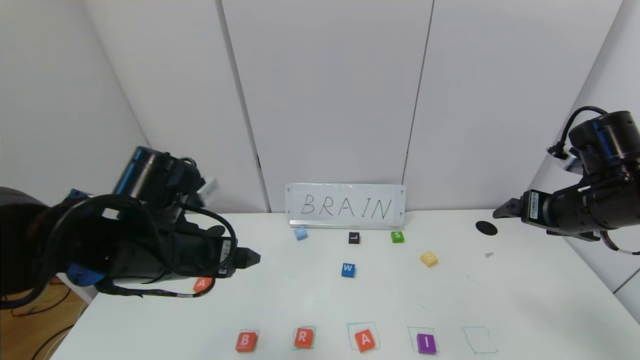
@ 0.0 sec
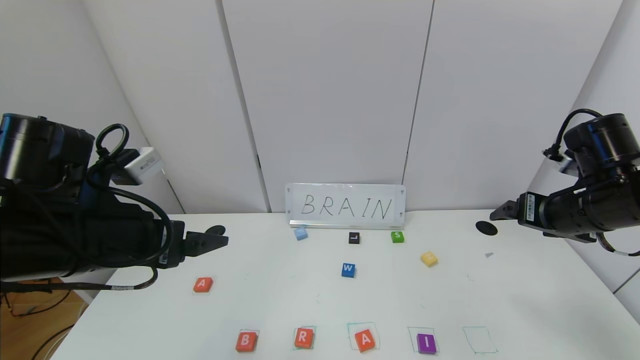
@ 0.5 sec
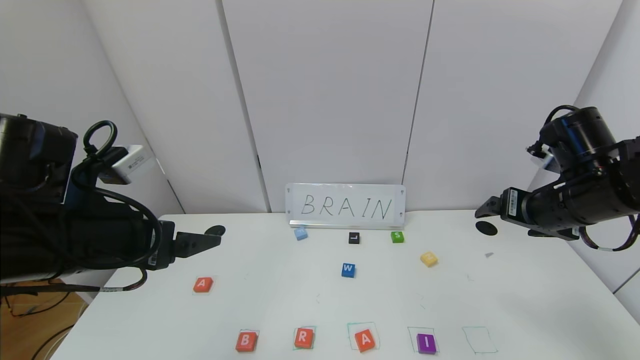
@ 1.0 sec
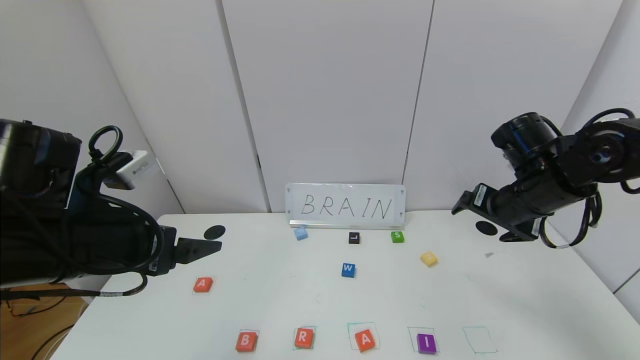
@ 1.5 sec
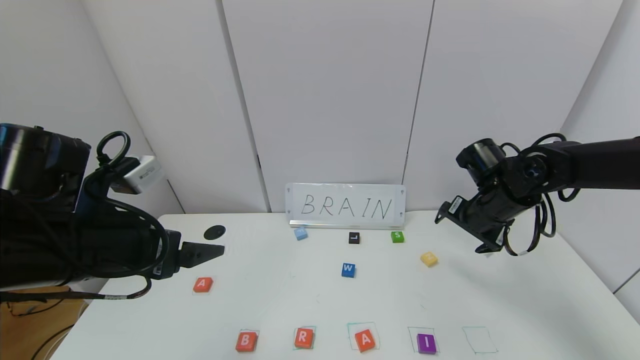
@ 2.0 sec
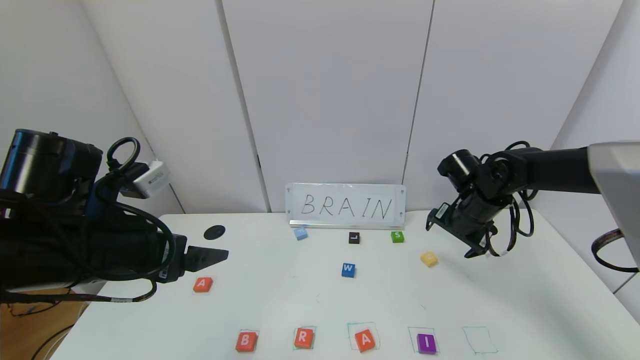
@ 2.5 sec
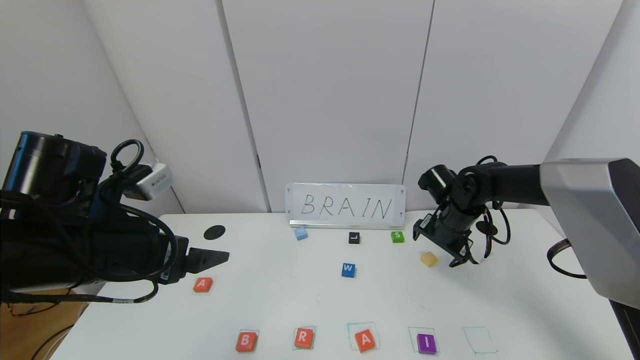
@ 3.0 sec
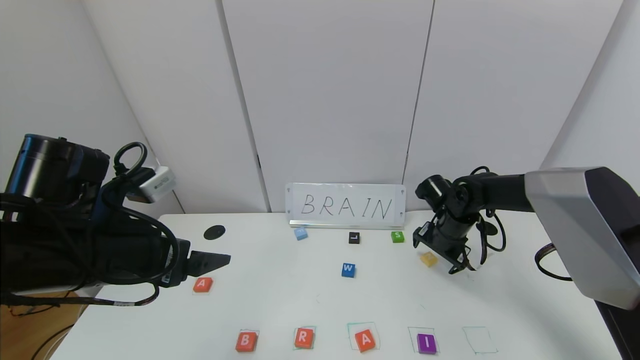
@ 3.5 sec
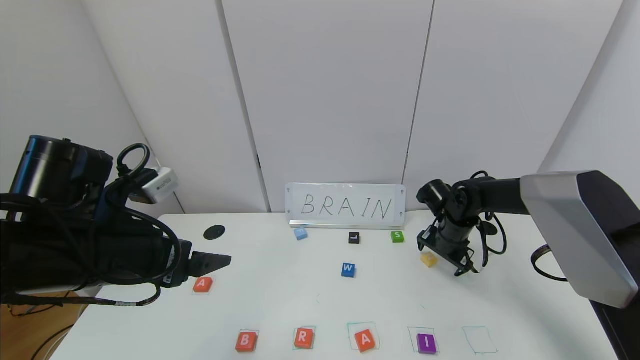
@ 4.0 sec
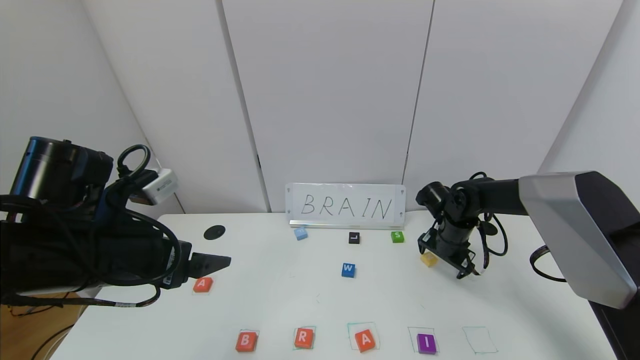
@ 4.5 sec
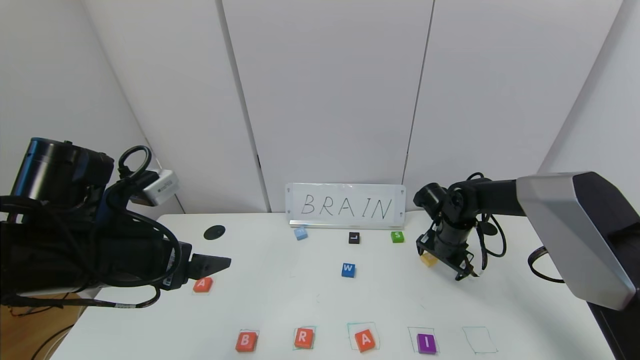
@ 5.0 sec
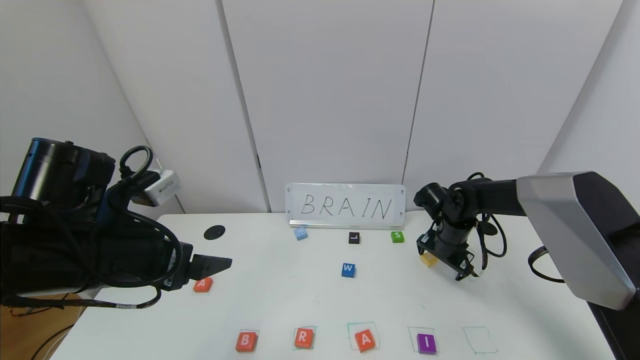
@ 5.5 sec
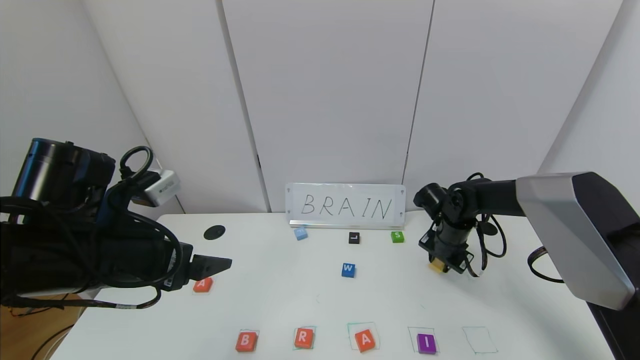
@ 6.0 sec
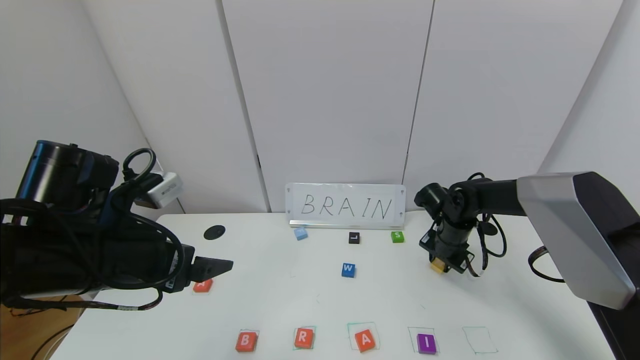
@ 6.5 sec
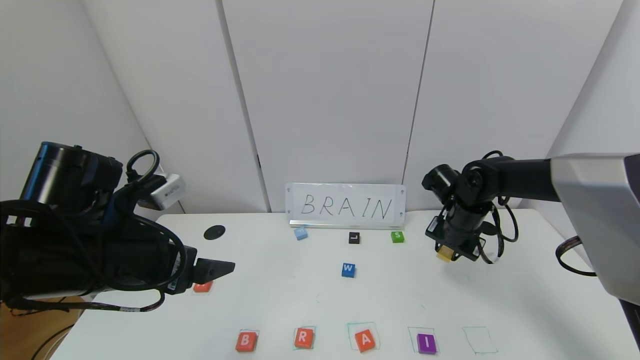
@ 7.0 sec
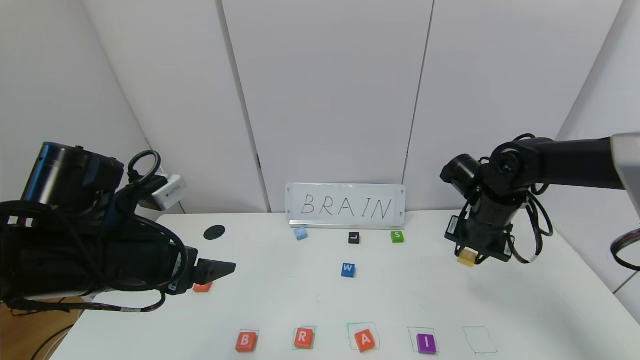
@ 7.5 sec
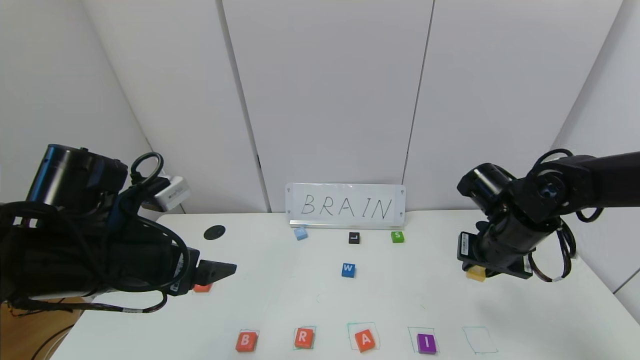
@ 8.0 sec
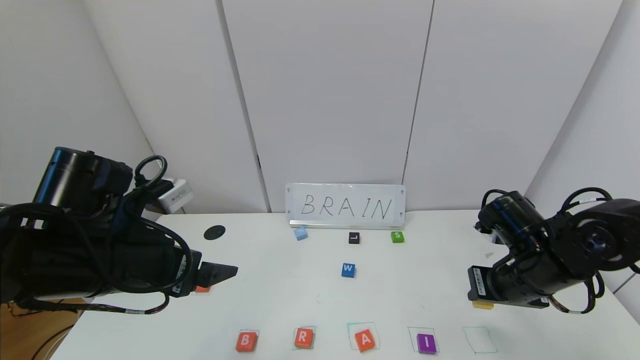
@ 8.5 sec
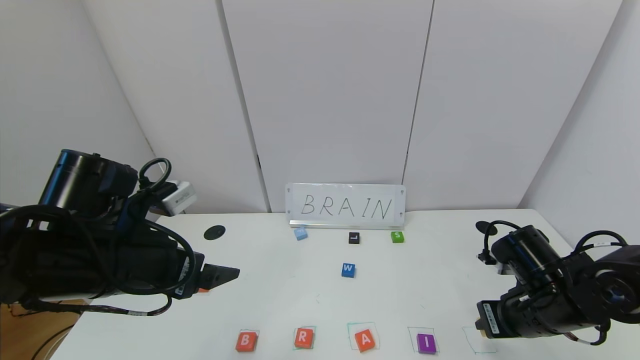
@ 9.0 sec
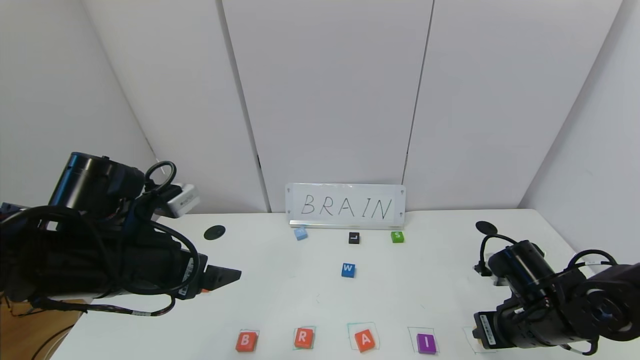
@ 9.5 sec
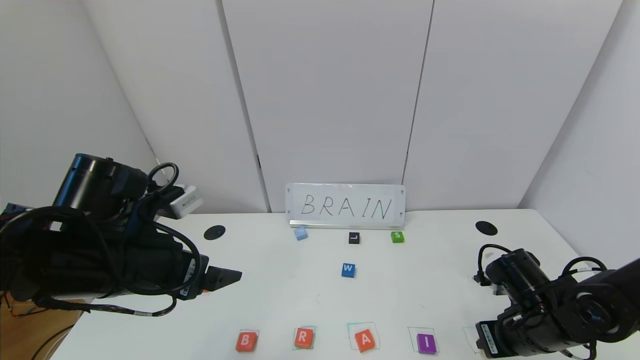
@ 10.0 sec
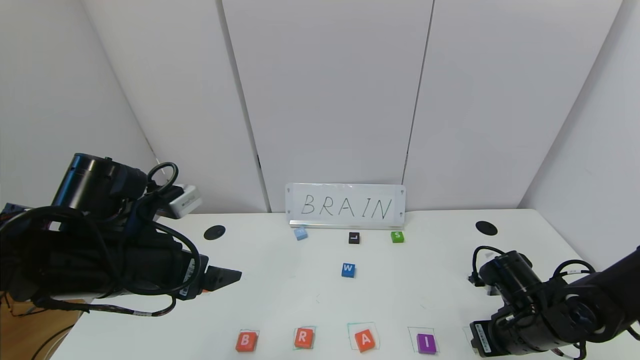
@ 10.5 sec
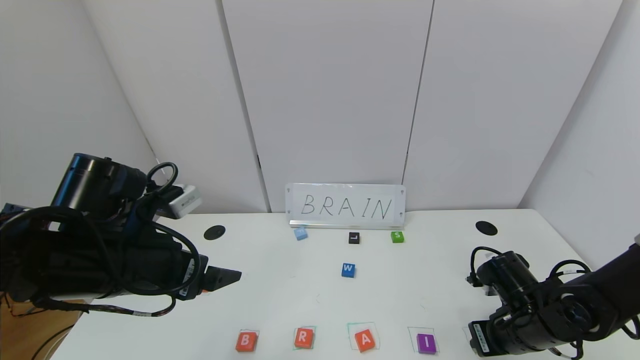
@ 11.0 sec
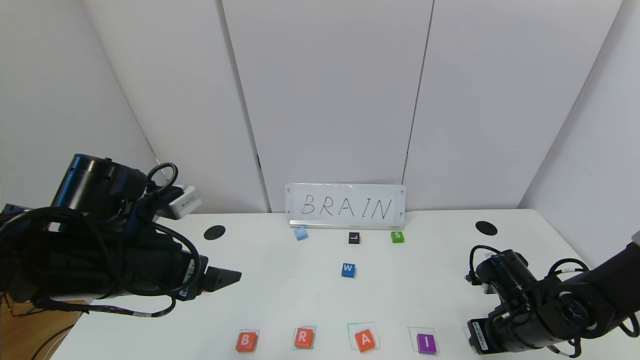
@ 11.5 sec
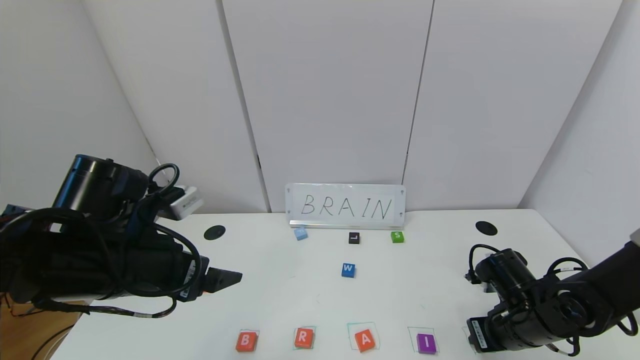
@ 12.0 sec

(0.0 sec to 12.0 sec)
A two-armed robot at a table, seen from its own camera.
Task of the whole recording: use the gripper to find blocks with the letters b, a, a, and i on the table and arrange them into BAAI, then find r and N and turn the arranged baai into brian.
0.0 sec - 2.0 sec: The right gripper goes about 15 cm forward, to the left and downward. The left gripper shifts by about 5 cm.
2.0 sec - 4.0 sec: The right gripper is displaced downward and forward by some 10 cm.
4.0 sec - 6.0 sec: The right gripper closes.
6.0 sec - 8.0 sec: The right gripper moves backward and upward, about 15 cm.
8.0 sec - 10.0 sec: The right gripper shifts approximately 15 cm downward and backward.
10.0 sec - 12.0 sec: There are only small adjustments of the grippers.

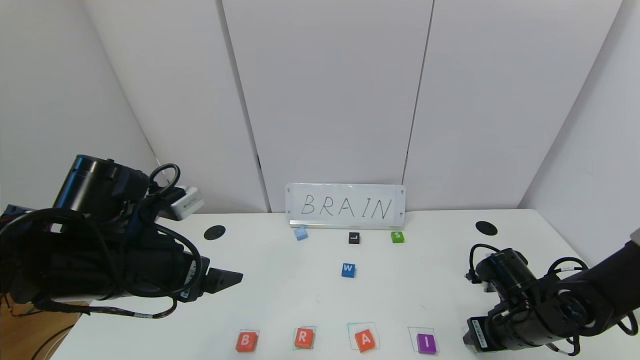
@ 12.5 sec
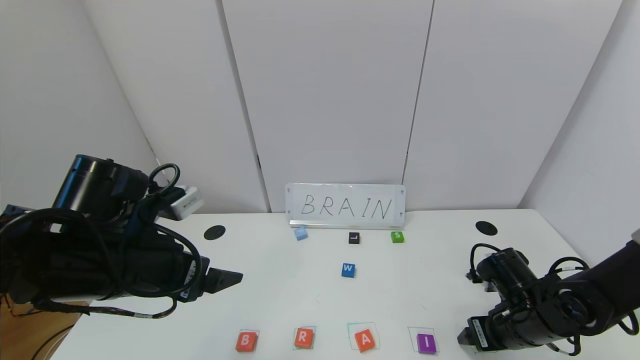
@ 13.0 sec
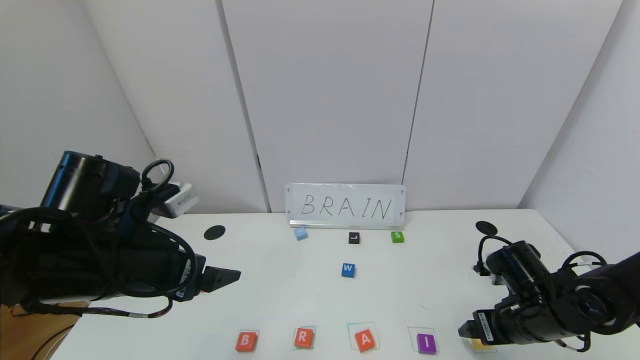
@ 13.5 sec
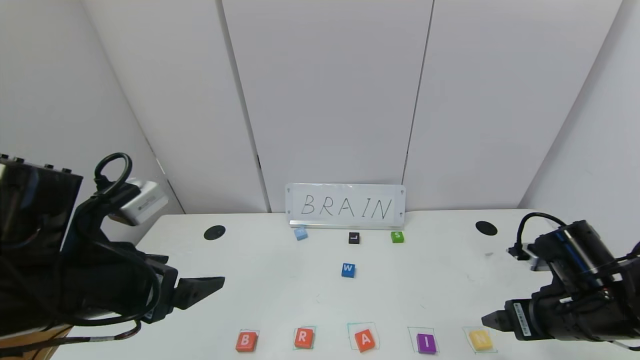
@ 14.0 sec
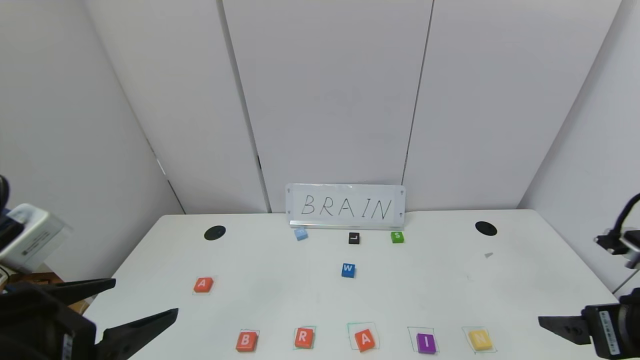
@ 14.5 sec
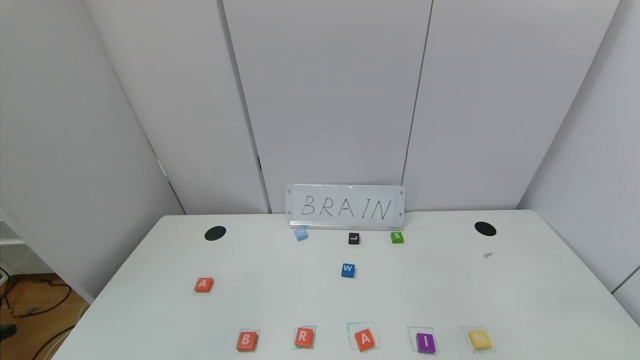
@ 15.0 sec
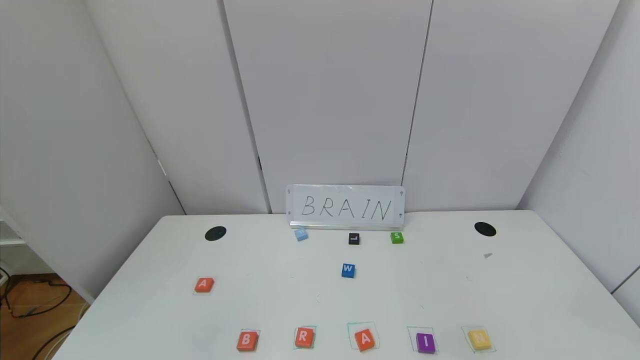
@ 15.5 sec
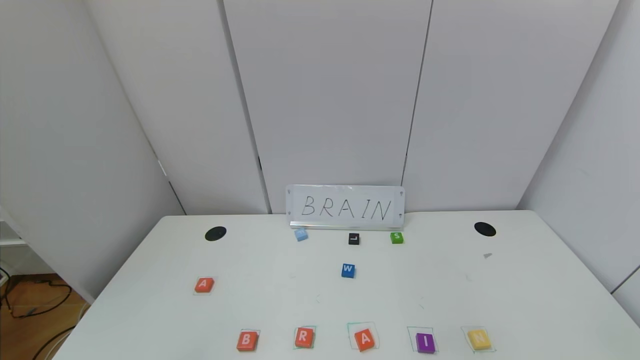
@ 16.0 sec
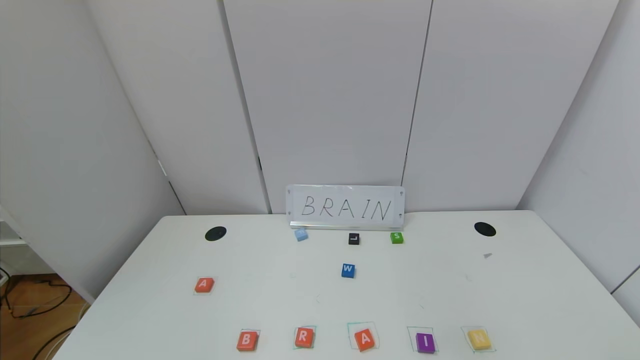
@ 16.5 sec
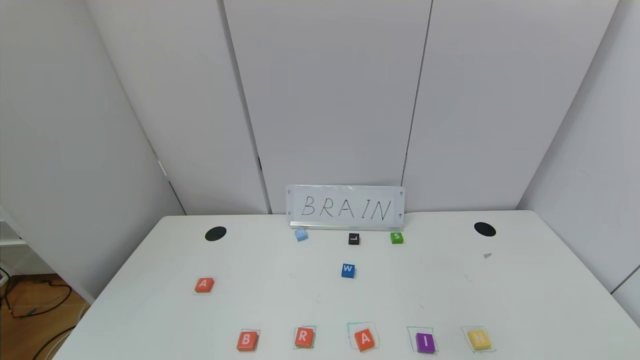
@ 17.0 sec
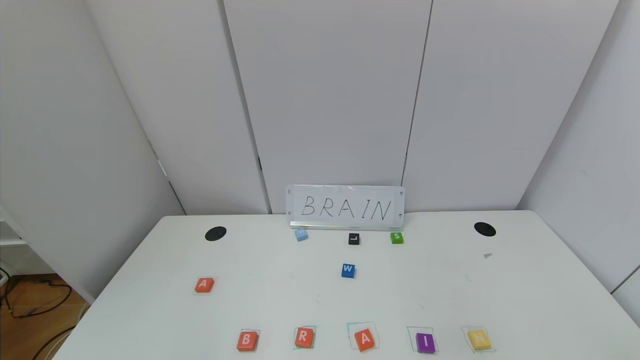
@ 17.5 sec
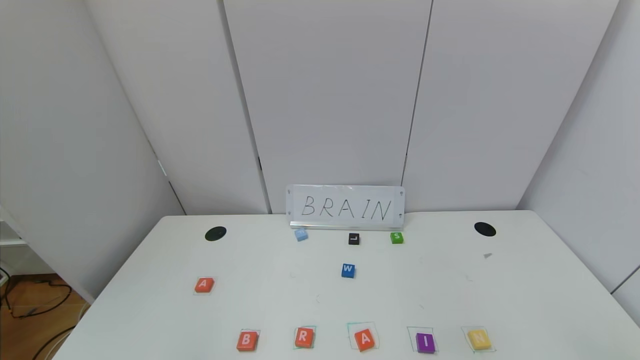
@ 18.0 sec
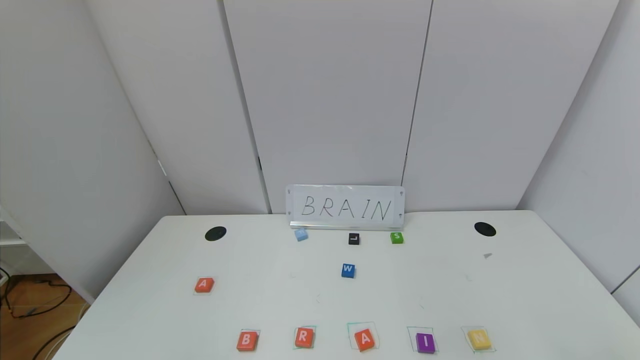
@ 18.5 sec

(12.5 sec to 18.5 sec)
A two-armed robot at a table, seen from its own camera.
Task of the whole recording: use the gripper to find blocks with the letters b, a, a, and i on the table and arrange them into BAAI, then find r and N and turn the arranged baai into brian.
12.5 sec - 14.5 sec: The right gripper is displaced upward and backward by about 20 cm, and opens up. The left gripper shifts roughly 10 cm backward.
14.5 sec - 16.5 sec: Both grippers move backward, approximately 20 cm.
